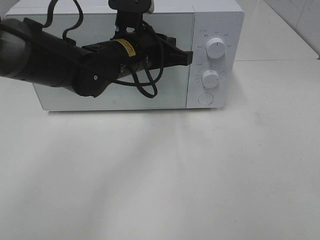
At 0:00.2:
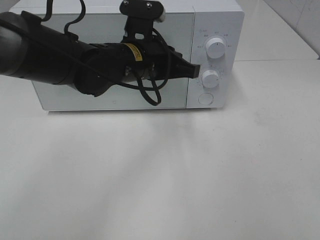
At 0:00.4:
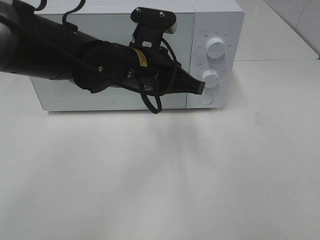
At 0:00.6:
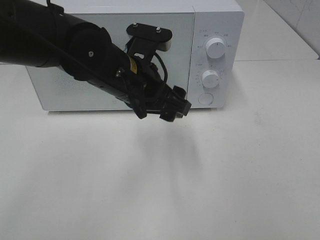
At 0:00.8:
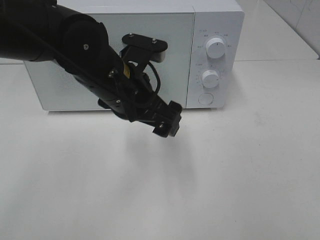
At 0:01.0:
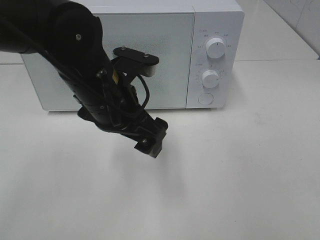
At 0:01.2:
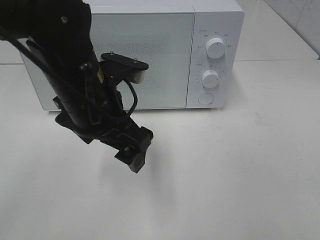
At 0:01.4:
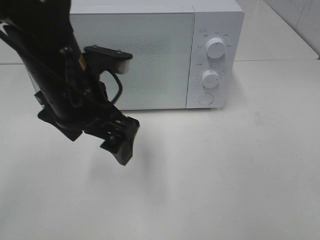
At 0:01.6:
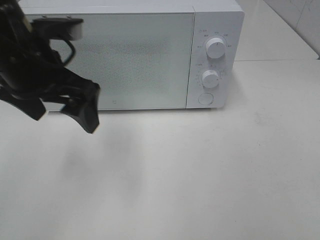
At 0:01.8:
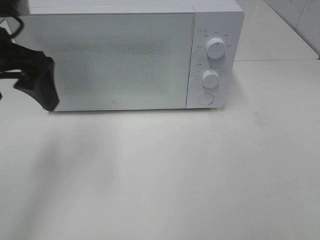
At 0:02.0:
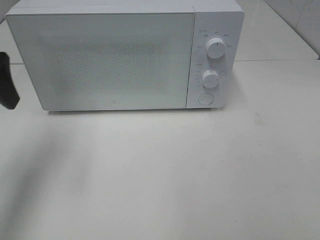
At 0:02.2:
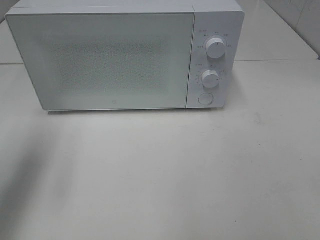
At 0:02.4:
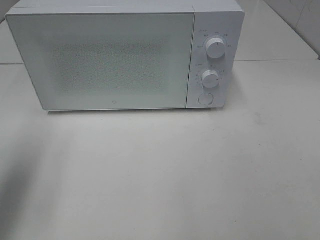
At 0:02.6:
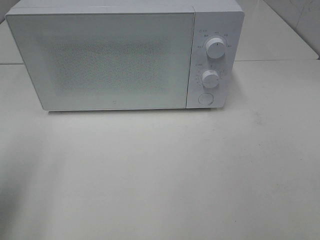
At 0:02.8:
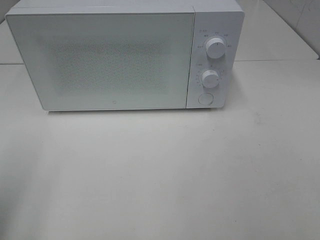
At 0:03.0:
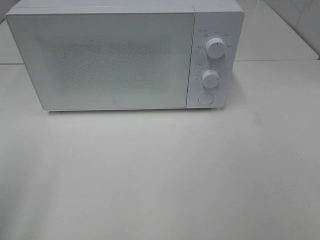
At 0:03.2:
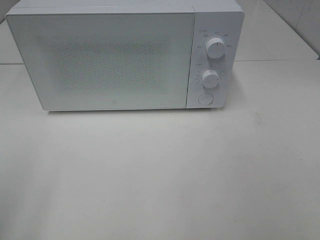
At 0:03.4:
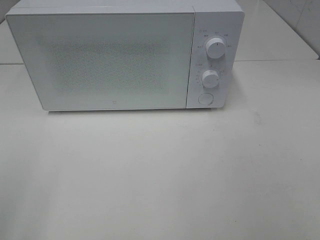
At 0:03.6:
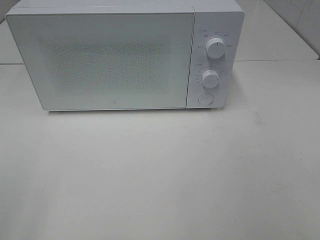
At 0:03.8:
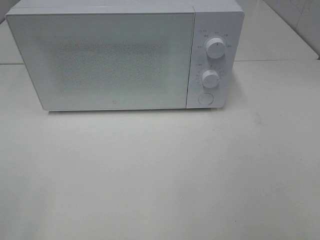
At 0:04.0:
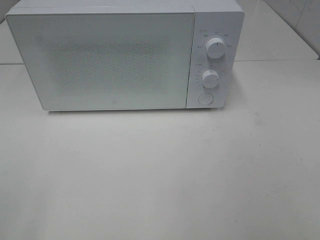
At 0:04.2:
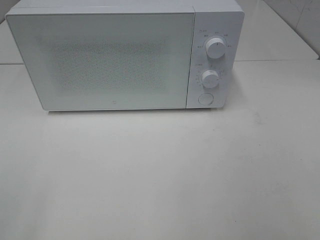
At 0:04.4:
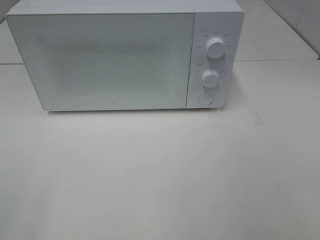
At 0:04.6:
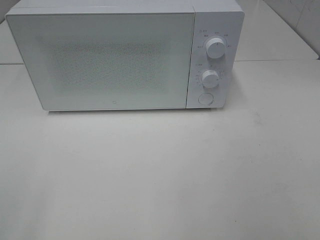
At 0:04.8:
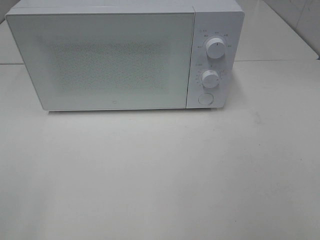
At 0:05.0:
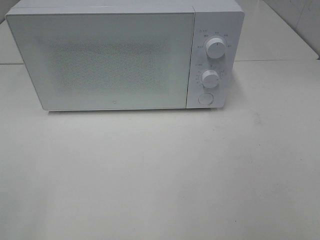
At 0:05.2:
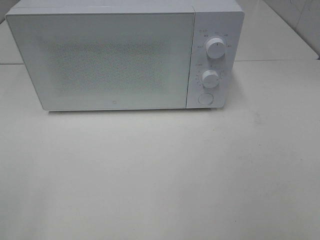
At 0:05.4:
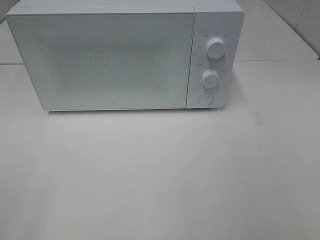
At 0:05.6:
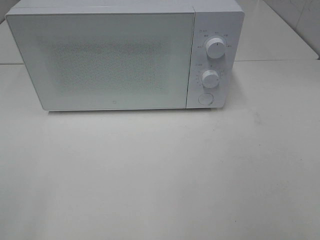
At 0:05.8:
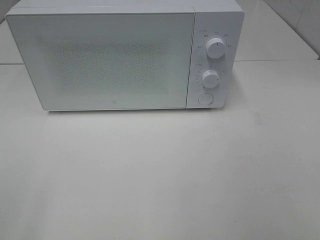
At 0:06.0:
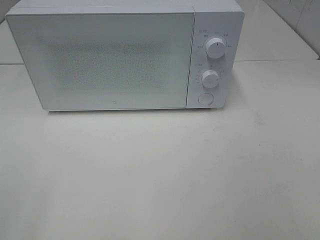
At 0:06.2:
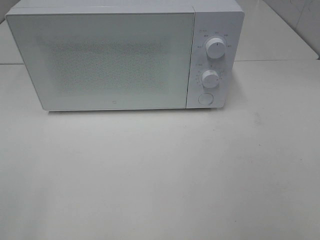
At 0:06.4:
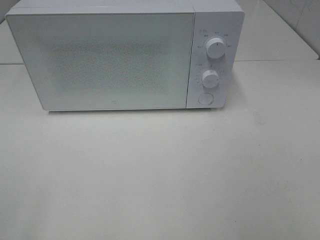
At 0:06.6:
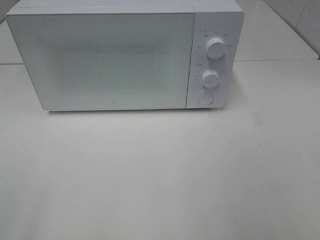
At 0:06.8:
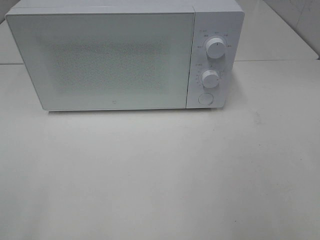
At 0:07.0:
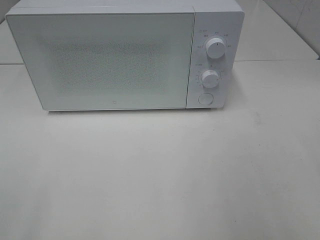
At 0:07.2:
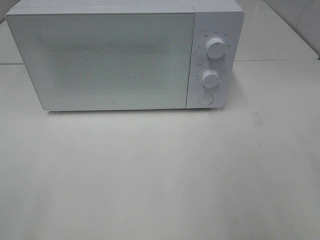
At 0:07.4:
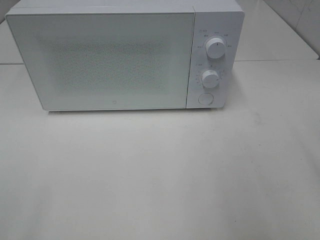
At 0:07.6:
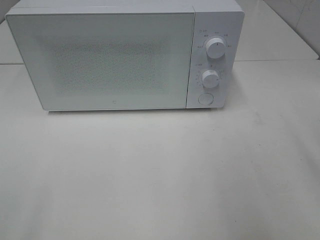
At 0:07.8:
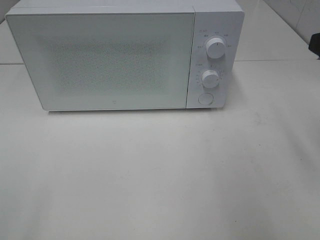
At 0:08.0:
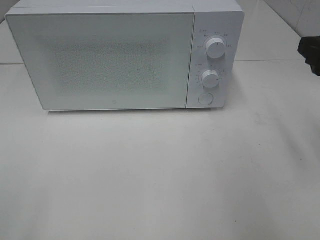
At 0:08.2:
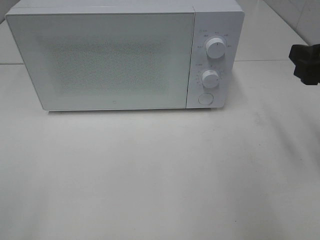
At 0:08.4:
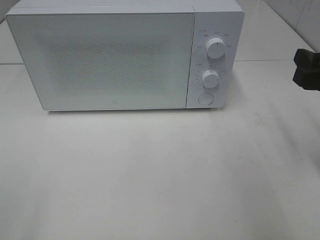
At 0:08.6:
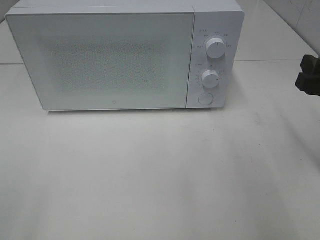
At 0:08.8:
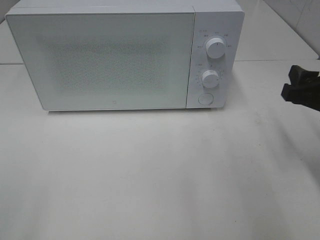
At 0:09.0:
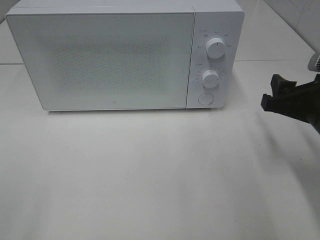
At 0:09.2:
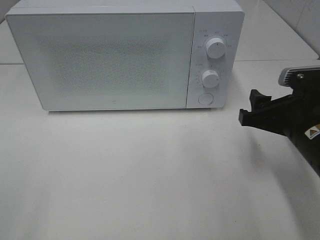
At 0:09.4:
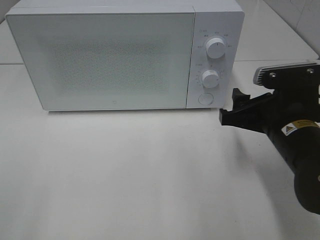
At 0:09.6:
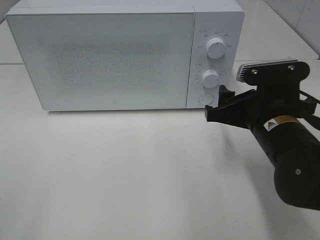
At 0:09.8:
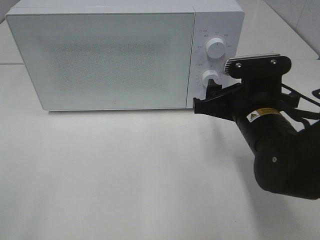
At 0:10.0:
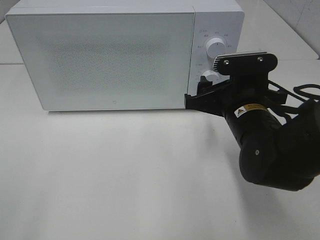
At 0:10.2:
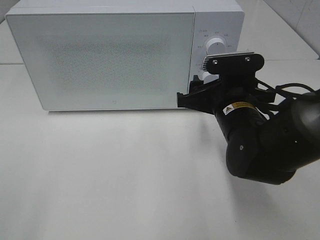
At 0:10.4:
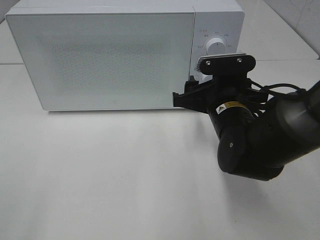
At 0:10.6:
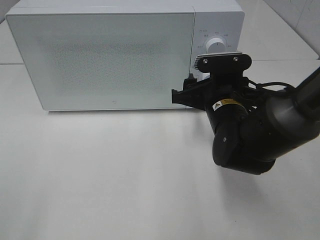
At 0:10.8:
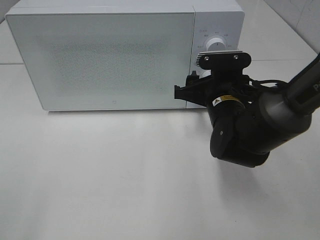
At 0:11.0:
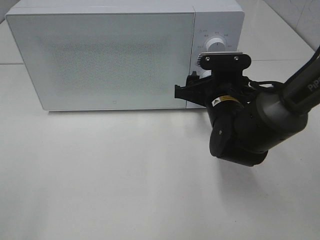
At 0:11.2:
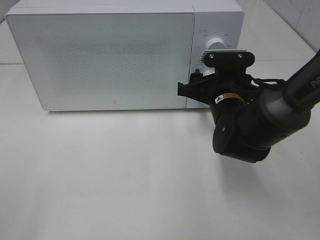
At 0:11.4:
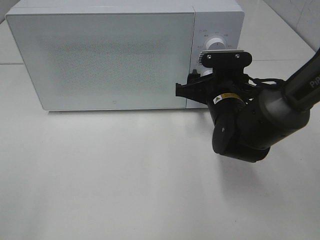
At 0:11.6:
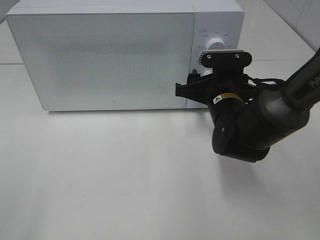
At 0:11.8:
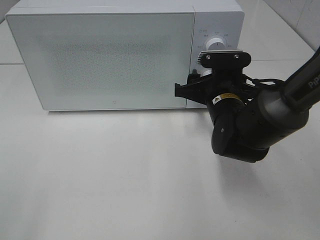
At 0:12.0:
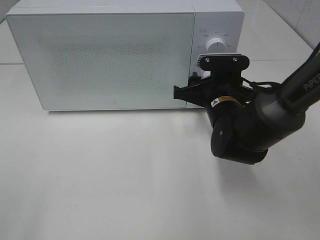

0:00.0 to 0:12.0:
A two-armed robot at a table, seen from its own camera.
Task of the whole recording: Heat the burger.
0:00.0 to 0:01.6: The left gripper is displaced to the left, backward and upward by about 15 cm, and opens.
0:01.6 to 0:03.0: The left gripper is displaced backward and to the left by about 25 cm.
0:04.4 to 0:06.0: The two grippers keep their place.
0:07.6 to 0:09.0: The right gripper moves downward and forward, roughly 15 cm.
0:09.0 to 0:10.4: The right gripper shifts roughly 15 cm to the left and forward.
0:10.4 to 0:12.0: The grippers make only small movements.

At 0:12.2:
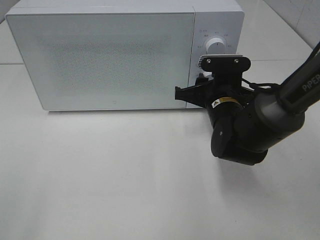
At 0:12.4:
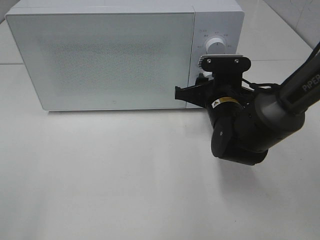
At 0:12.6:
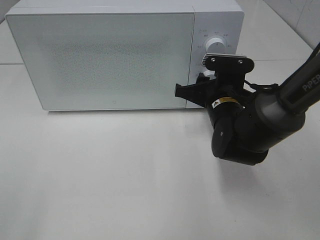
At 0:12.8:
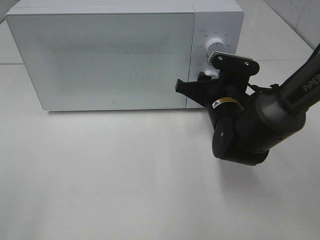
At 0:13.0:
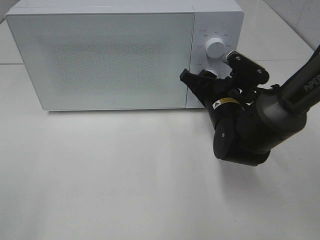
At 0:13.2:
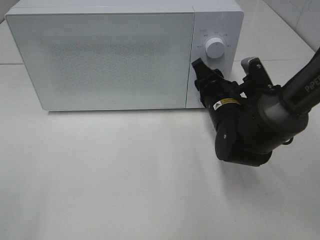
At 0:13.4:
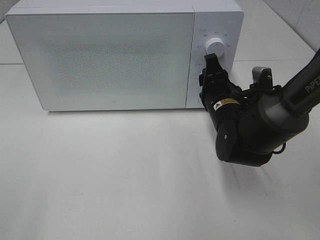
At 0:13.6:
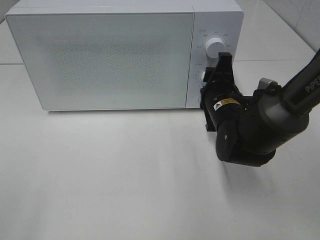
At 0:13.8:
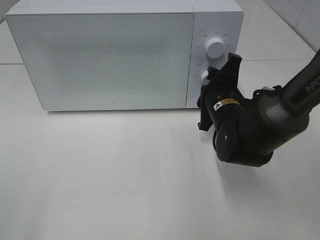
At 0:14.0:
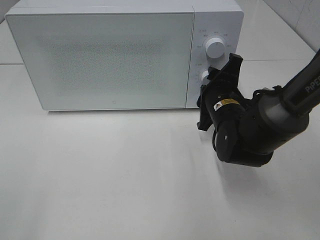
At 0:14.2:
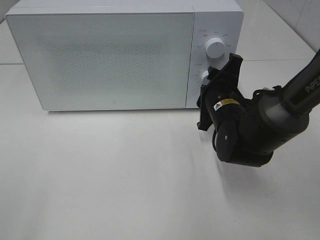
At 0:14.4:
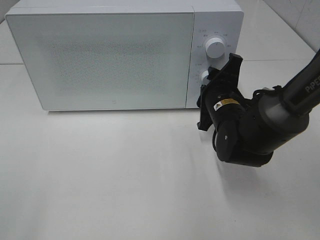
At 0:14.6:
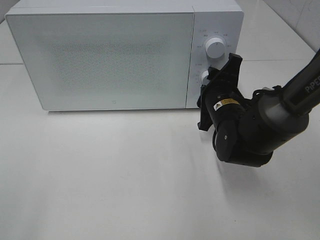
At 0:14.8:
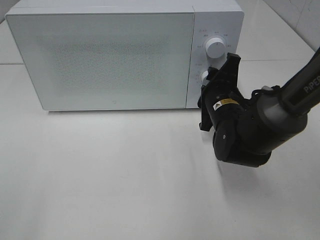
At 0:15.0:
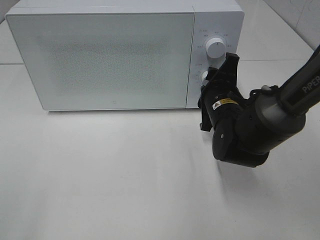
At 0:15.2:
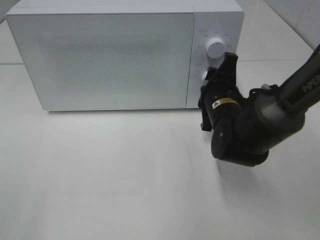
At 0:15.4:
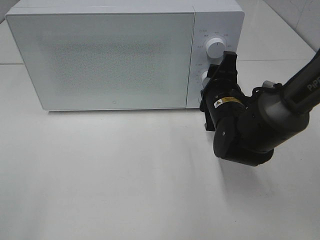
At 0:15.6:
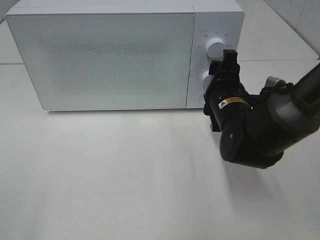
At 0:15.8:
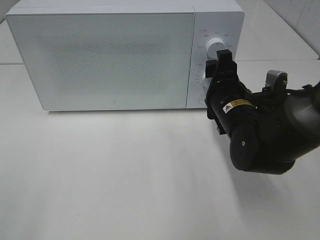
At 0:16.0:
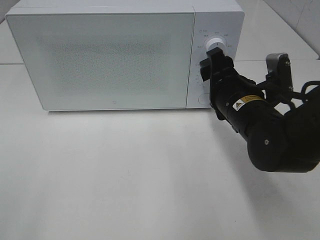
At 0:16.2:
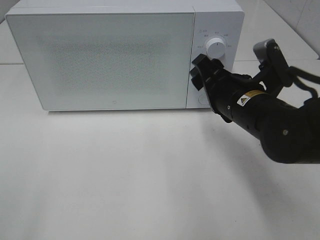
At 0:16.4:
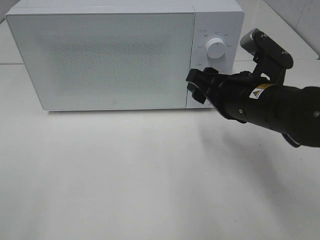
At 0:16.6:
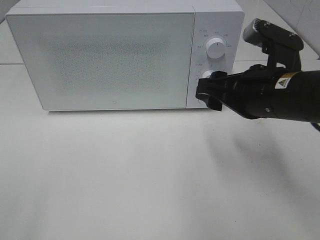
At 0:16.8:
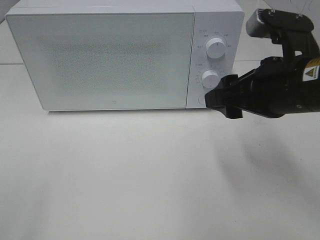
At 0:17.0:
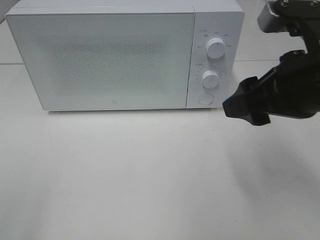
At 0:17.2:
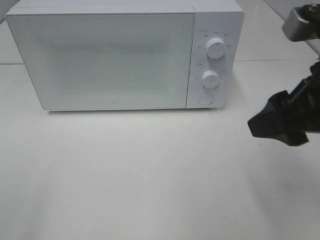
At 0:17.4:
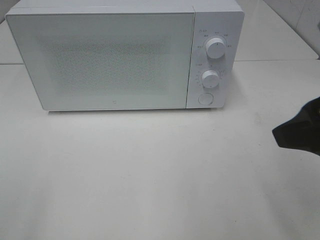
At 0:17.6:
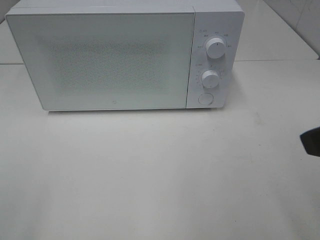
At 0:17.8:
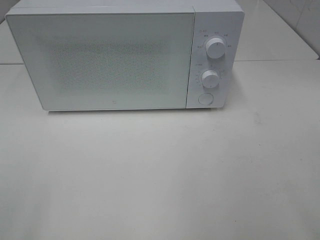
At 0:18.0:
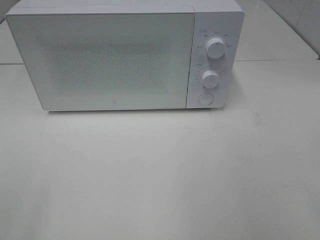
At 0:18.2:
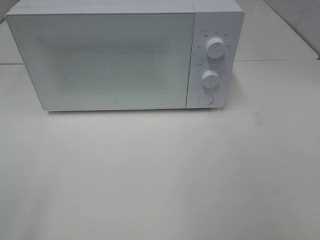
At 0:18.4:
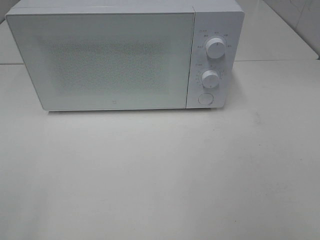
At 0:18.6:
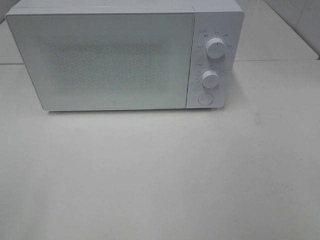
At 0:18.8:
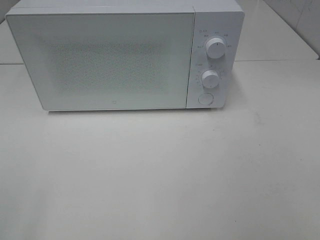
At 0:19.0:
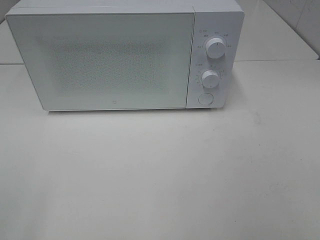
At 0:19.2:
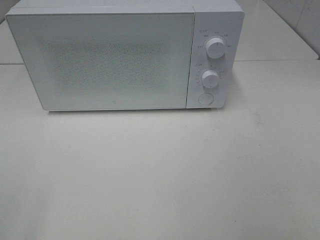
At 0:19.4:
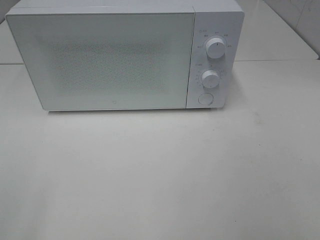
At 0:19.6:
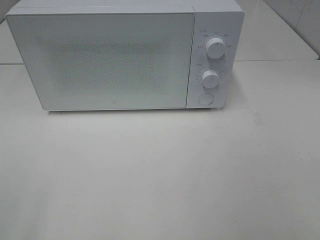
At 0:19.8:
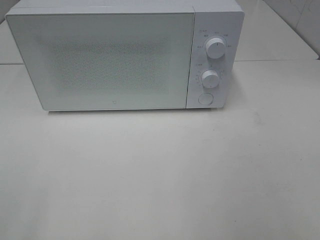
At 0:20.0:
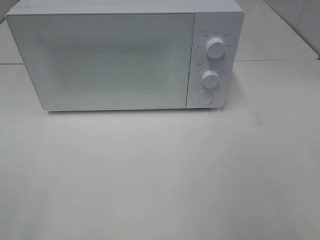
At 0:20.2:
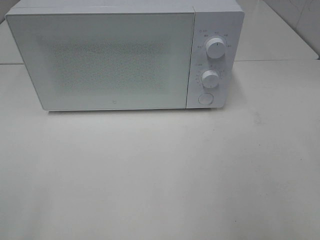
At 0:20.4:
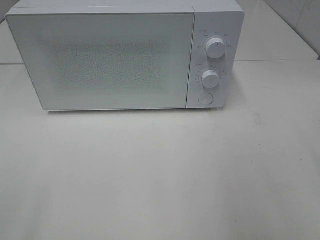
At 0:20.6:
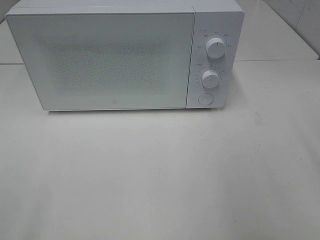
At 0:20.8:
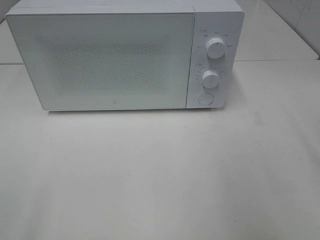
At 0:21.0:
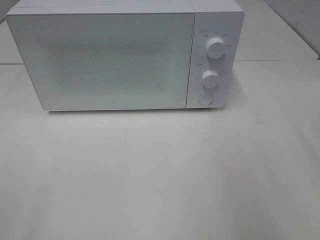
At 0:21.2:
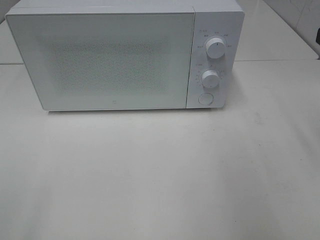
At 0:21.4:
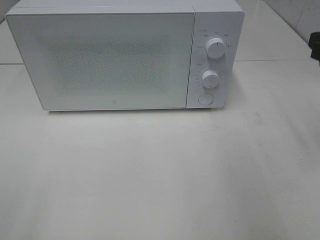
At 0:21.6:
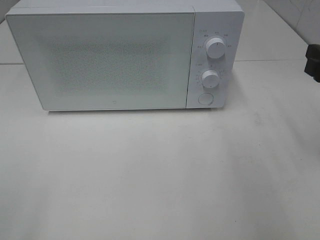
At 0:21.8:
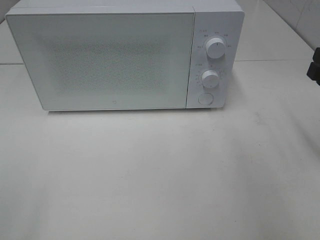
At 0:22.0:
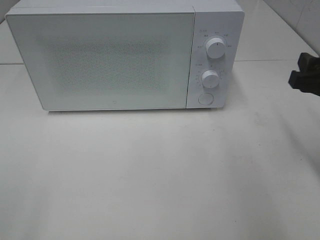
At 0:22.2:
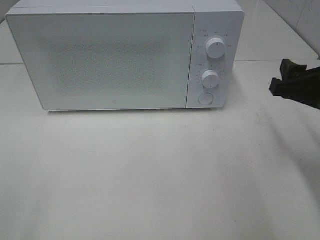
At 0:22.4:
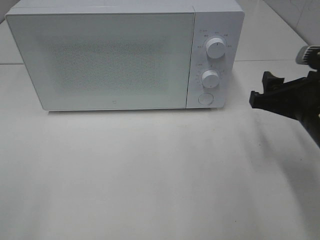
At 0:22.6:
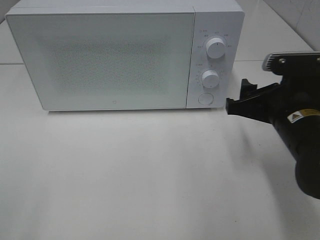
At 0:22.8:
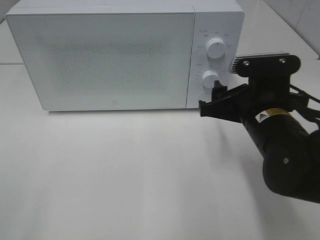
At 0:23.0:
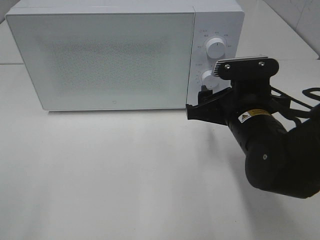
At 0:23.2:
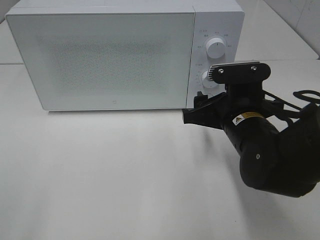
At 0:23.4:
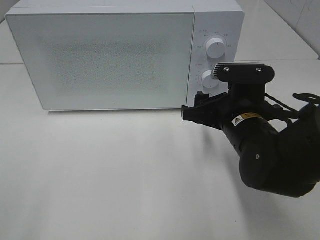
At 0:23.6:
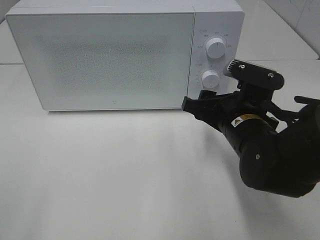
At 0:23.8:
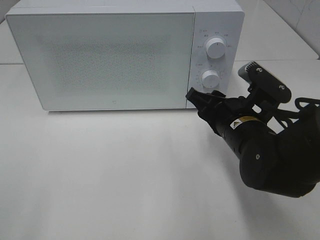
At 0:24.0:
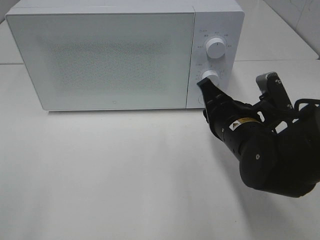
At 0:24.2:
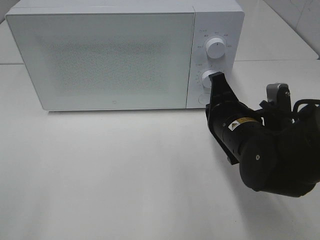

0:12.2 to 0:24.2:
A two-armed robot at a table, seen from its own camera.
Task of the whole recording: Heat the burger.
Step, 0:12.2 to 0:15.4: Right hand: twist timer button.
0:13.8 to 0:15.2: The grippers stay close to where they were, moving slightly.
0:15.2 to 0:16.6: The right gripper shifts about 15 cm upward and backward.
0:16.6 to 0:18.2: The right gripper shifts about 30 cm backward, upward and to the right.
0:21.2 to 0:22.6: The right gripper goes some 15 cm downward and to the left.
0:22.6 to 0:24.2: The right gripper moves to the left, about 5 cm, and closes.
